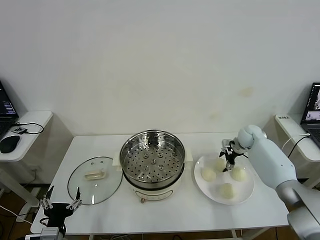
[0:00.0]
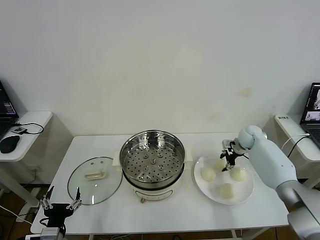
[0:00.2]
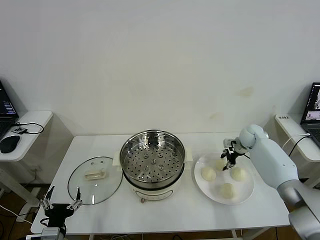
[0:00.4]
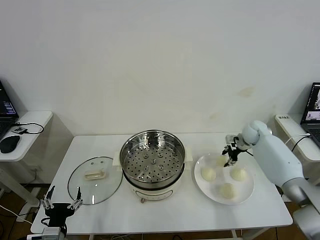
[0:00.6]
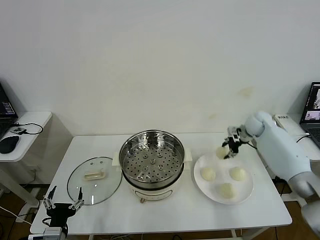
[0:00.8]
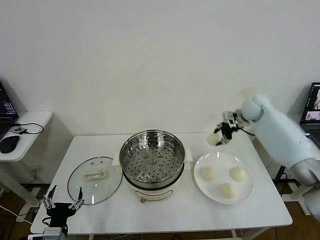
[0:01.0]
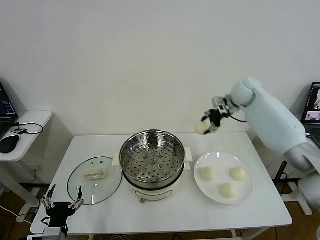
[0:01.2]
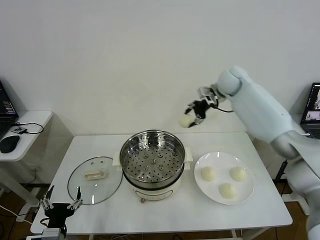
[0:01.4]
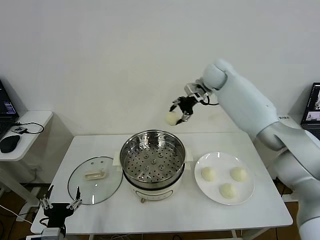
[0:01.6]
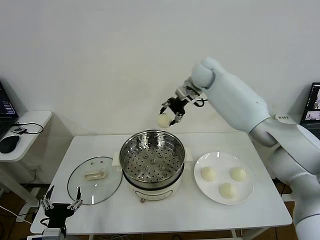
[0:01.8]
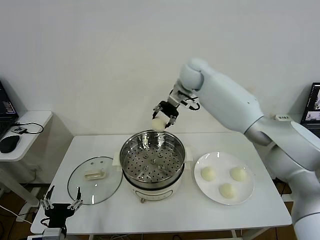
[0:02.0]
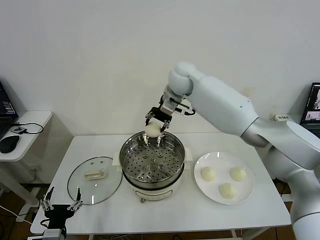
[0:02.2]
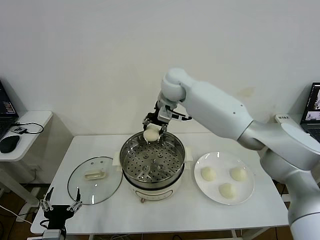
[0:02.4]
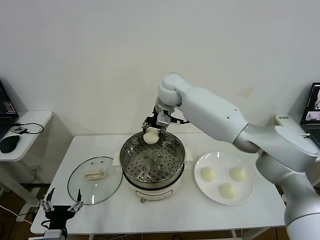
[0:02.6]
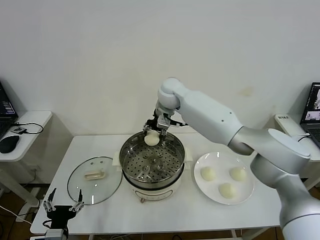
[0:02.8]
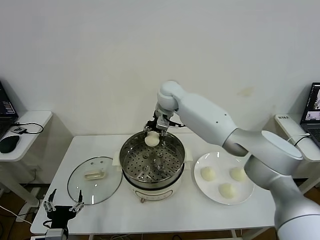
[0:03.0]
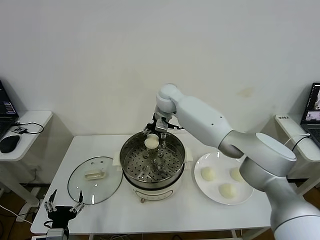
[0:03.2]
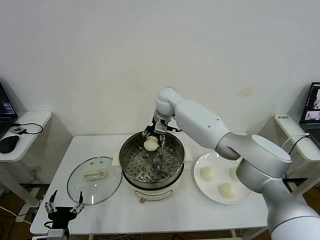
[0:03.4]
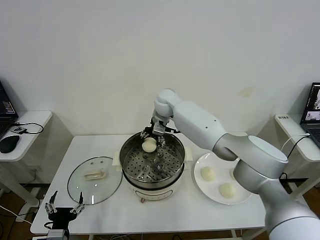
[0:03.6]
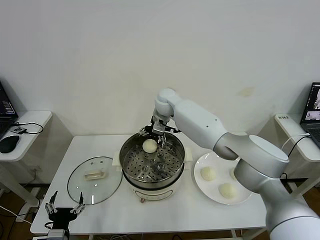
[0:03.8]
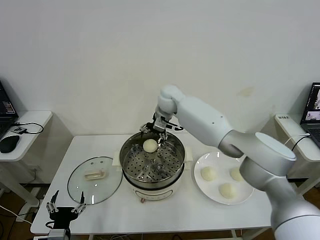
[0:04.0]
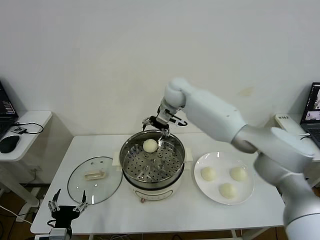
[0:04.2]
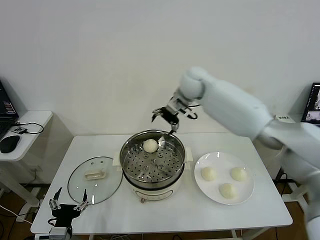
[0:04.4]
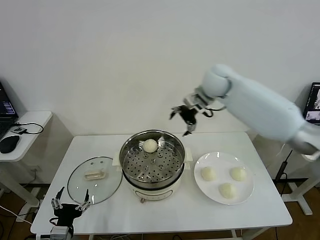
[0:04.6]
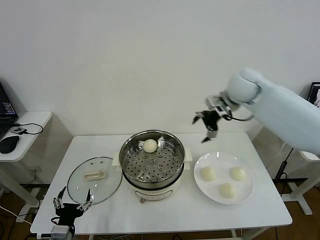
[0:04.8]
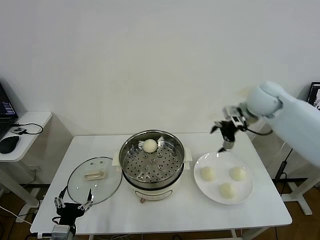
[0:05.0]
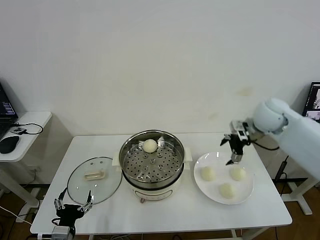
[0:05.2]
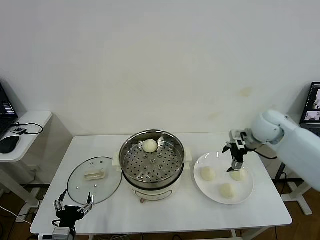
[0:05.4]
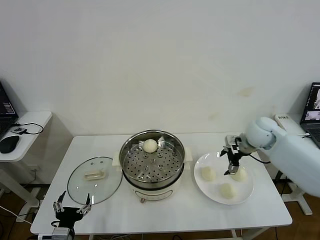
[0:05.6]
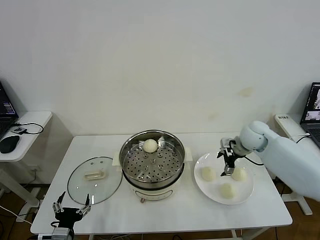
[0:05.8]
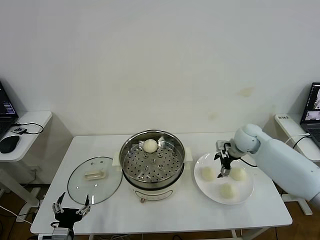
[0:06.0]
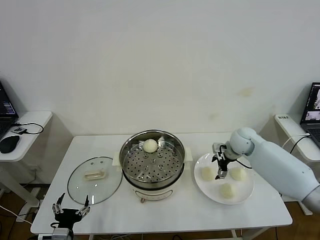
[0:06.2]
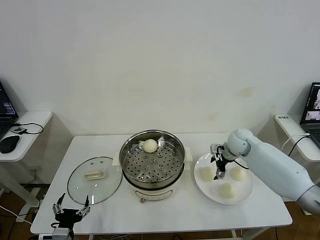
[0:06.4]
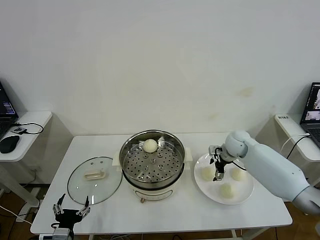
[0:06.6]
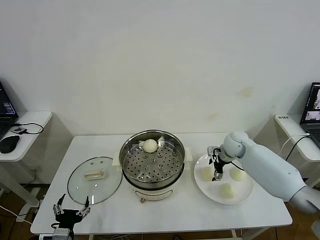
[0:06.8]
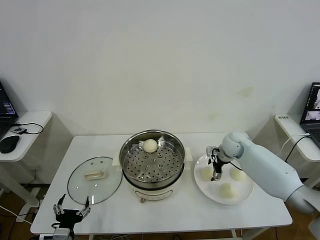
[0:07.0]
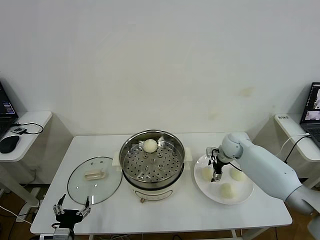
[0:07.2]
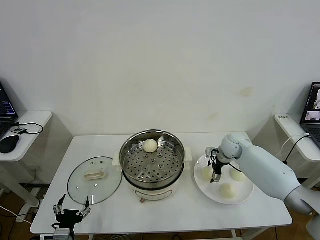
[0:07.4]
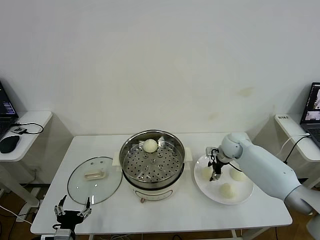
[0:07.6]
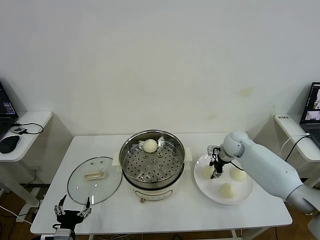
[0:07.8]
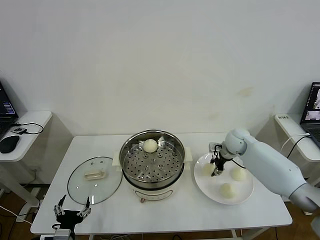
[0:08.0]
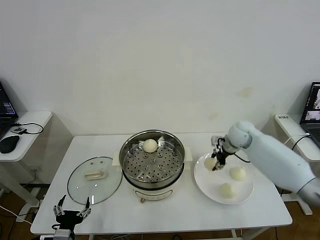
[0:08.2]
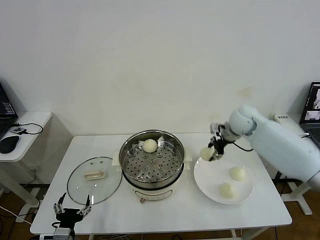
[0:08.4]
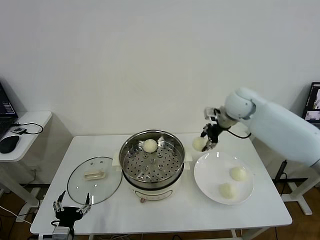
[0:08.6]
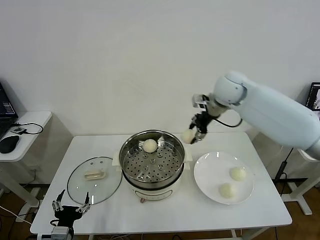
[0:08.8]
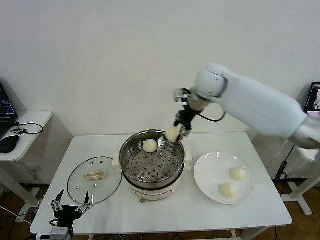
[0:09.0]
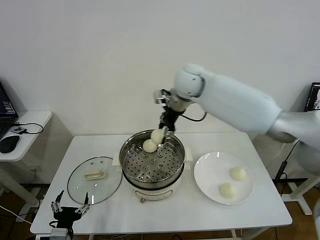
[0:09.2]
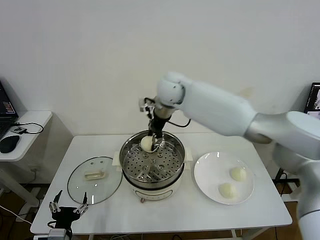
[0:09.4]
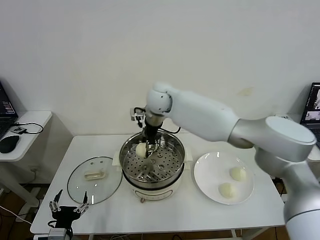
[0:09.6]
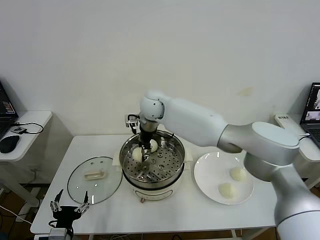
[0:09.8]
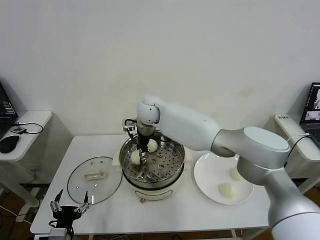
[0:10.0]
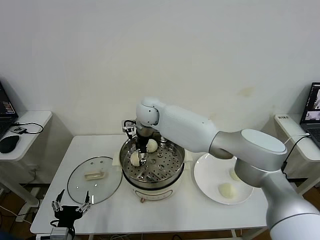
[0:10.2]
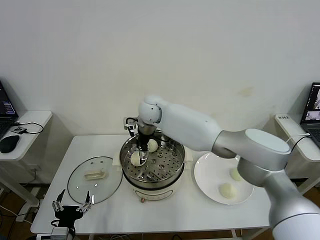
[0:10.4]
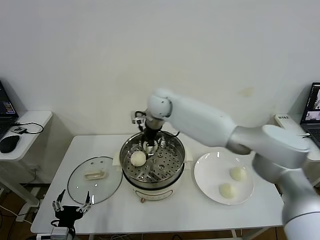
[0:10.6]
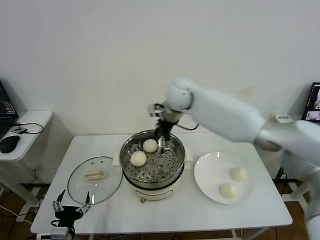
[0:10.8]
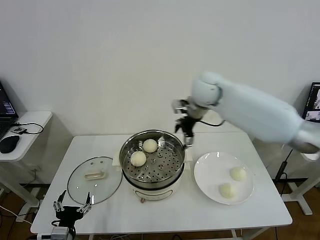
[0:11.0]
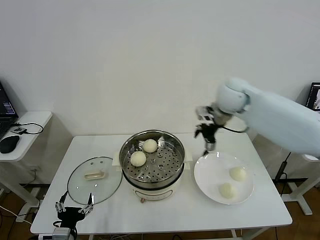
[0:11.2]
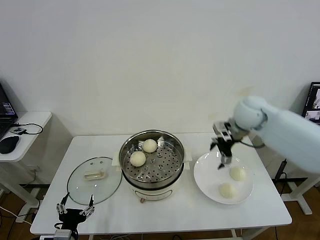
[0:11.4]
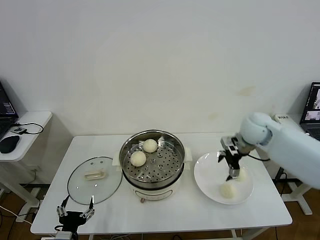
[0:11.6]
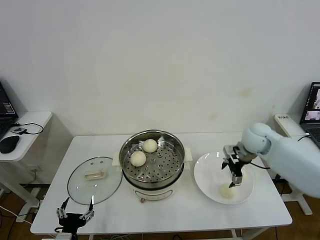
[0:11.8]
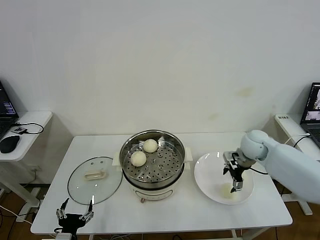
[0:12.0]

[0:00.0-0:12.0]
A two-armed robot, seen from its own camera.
Step, 0:00.4 to 0:03.8: Place the baozi on the steamer with right gripper.
Step, 0:04.0 to 0:07.6: Grasp the baozi in the plate with right gripper.
Step, 0:07.8 to 0:10.2: Place the baozi on the steamer with right gripper.
0:00.0 to 0:01.6: The right gripper moves upward and to the left, approximately 30 cm, and closes its fingers.
0:01.6 to 0:03.0: The right gripper is displaced to the left and downward by approximately 15 cm.
0:03.0 to 0:04.4: The right gripper travels to the right and upward by about 10 cm, and opens its fingers.
0:04.4 to 0:06.0: The right gripper heads to the right, downward and backward, covering some 25 cm.
0:06.0 to 0:07.6: The right gripper moves downward, some 5 cm, and closes its fingers.
0:07.6 to 0:09.0: The right gripper moves upward and to the left, approximately 30 cm.
0:09.0 to 0:10.4: The right gripper moves to the left and downward, some 20 cm, and opens.
0:10.4 to 0:12.0: The right gripper travels to the right by roughly 35 cm.

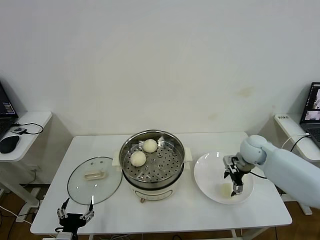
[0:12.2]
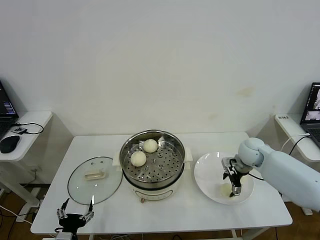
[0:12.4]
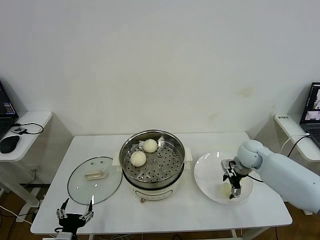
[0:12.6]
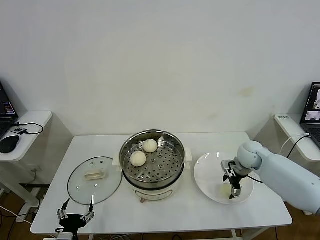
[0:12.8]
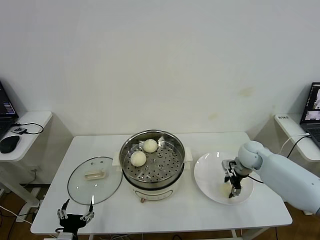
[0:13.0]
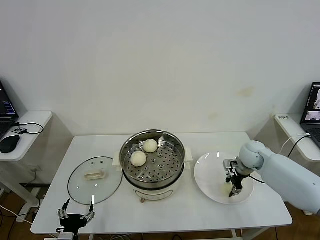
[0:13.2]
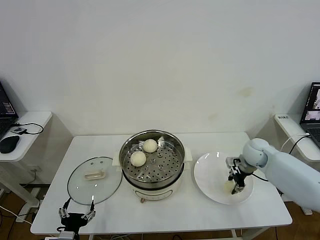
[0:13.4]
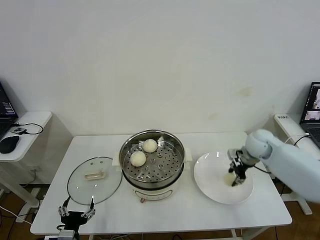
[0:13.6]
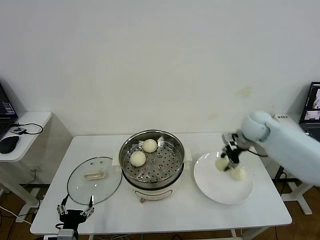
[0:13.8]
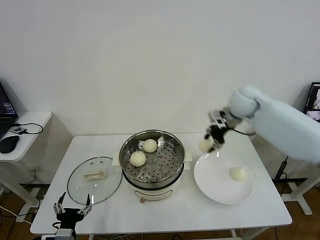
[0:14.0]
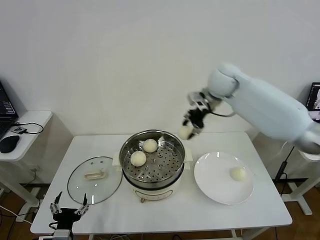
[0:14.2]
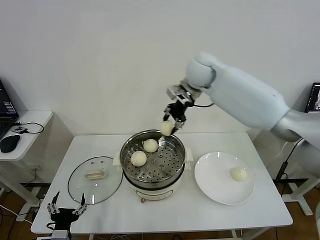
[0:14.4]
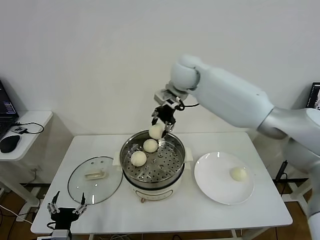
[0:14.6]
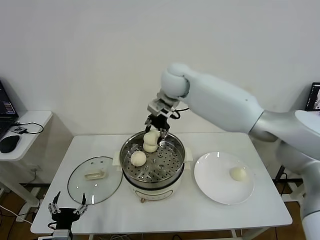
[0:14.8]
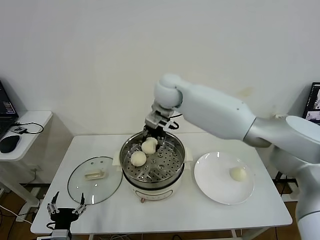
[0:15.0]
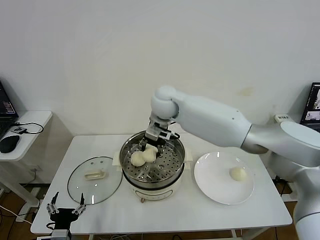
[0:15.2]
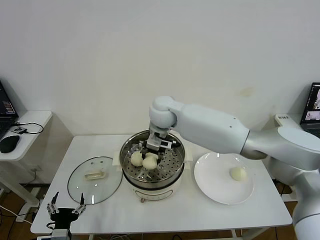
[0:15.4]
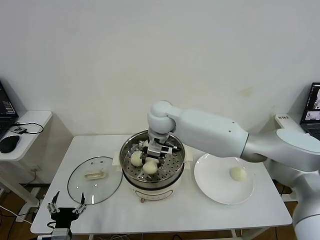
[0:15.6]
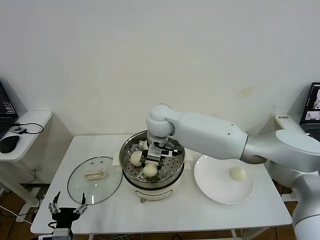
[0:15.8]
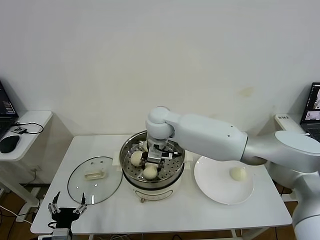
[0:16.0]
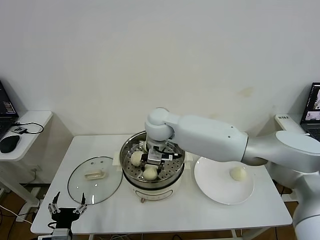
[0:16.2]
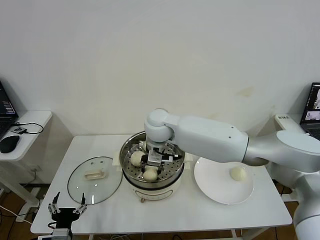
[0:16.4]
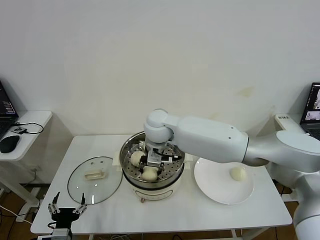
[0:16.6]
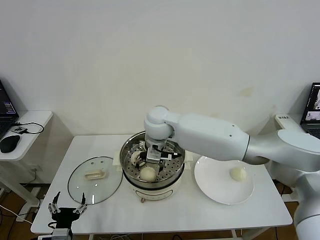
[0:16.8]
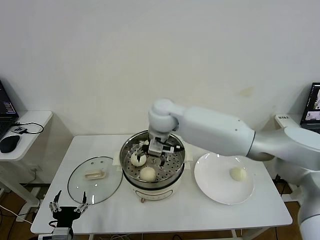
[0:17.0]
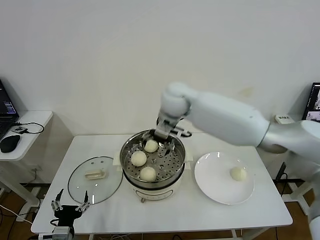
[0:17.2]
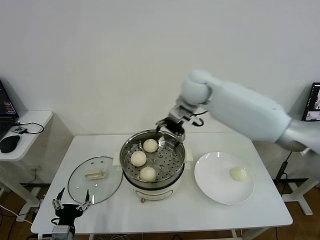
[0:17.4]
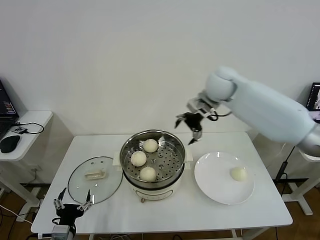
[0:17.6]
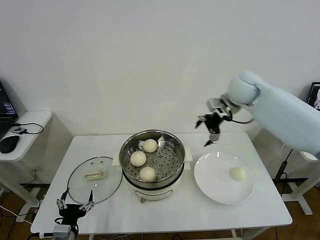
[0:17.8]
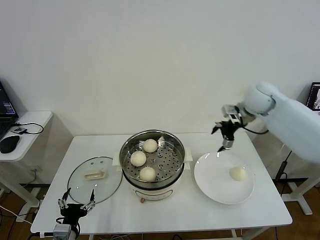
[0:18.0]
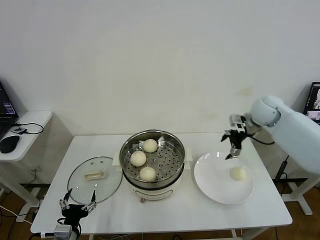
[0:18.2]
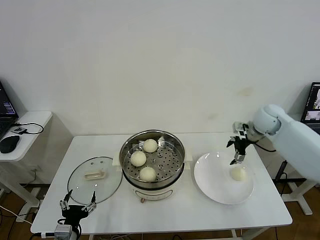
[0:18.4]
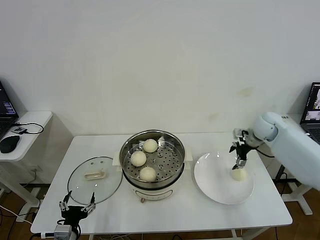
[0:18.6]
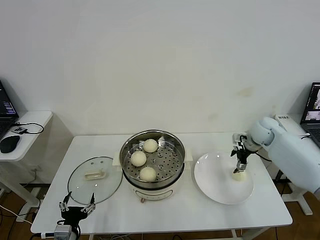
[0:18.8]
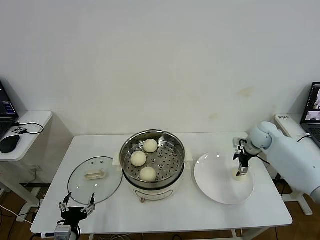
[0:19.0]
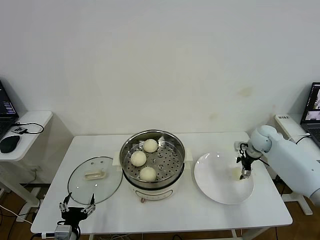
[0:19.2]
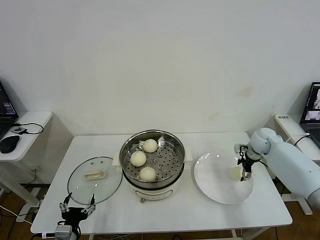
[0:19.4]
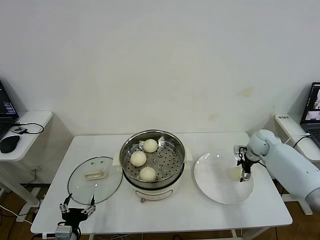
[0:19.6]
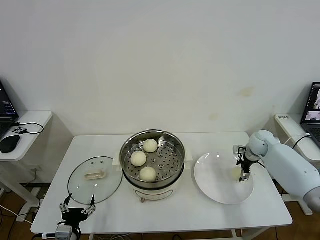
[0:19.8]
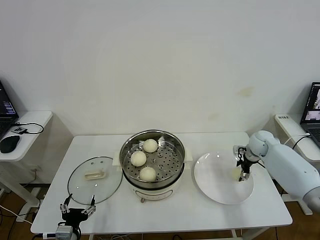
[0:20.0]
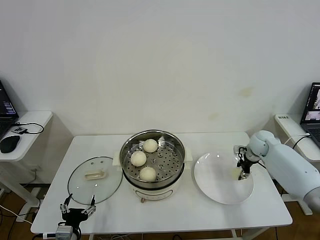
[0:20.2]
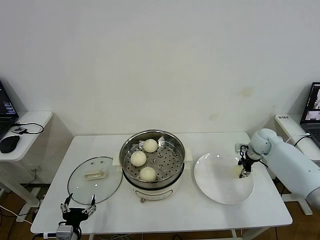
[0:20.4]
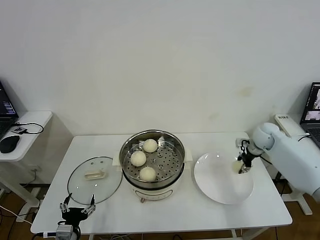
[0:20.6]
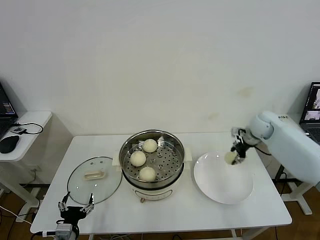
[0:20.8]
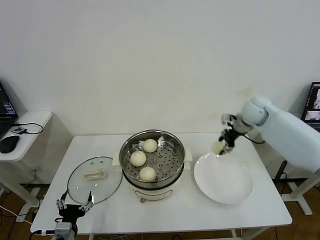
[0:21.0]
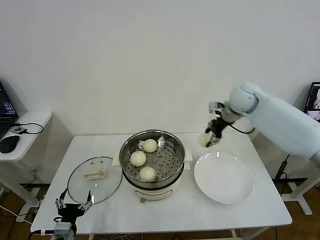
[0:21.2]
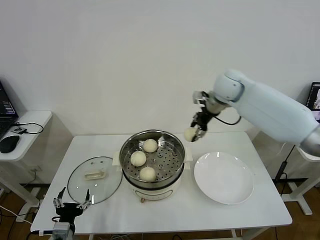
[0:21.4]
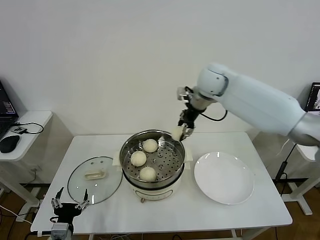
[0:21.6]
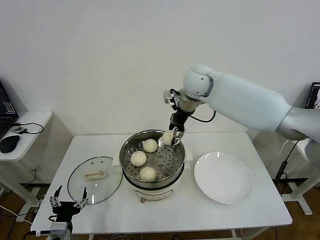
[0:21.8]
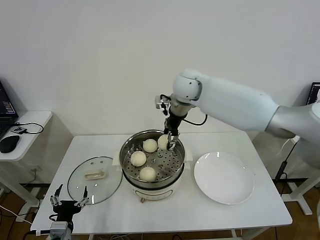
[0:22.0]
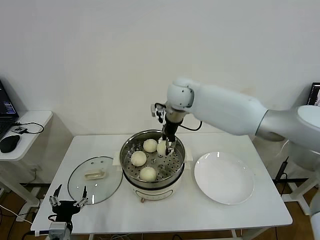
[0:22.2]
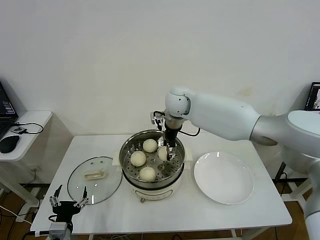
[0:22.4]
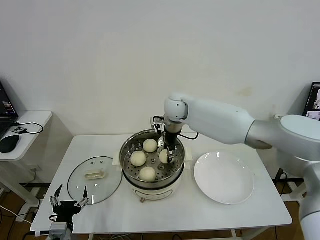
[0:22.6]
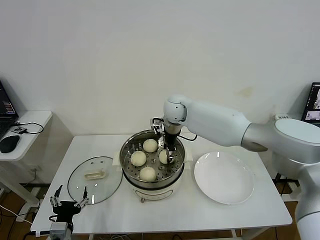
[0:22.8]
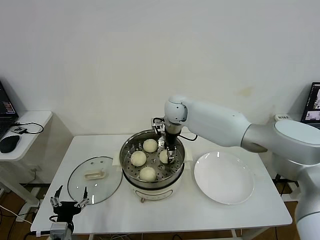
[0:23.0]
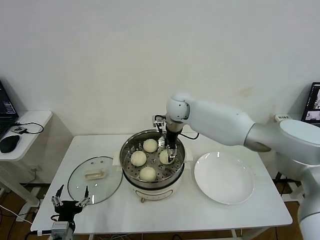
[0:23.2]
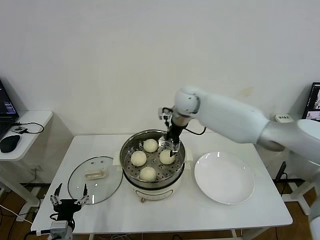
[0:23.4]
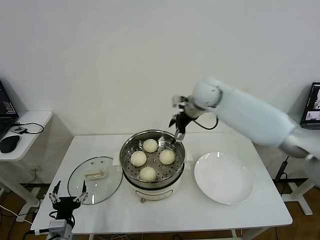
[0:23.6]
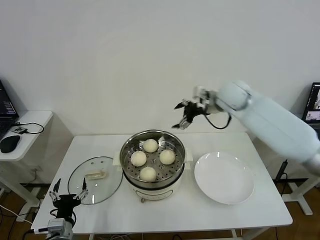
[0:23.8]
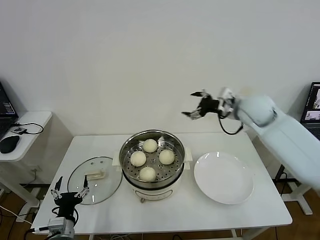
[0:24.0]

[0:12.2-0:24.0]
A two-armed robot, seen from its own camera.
Step, 0:13.2 to 0:16.8: Place the baozi on the steamer with right gripper.
Step, 0:17.0 to 0:20.2: Grasp the baozi in the plate with right gripper.
Step, 0:20.4 to 0:23.2: Place the baozi on the steamer with right gripper.
0:12.2 to 0:13.6: The right gripper closes its fingers.
0:13.6 to 0:15.2: The right gripper heads to the left and upward, covering approximately 35 cm.
0:15.2 to 0:16.6: The right gripper moves backward, about 5 cm.
0:16.6 to 0:18.2: The right gripper goes approximately 35 cm to the right, and opens up.
0:18.2 to 0:19.6: The right gripper moves downward, approximately 15 cm.
0:19.6 to 0:21.0: The right gripper goes roughly 15 cm upward and to the left, and closes.
0:21.0 to 0:22.6: The right gripper is displaced to the left by approximately 25 cm.
0:22.6 to 0:24.0: The right gripper goes about 20 cm to the right, and opens up.
